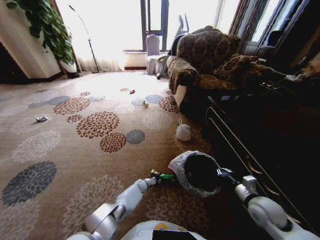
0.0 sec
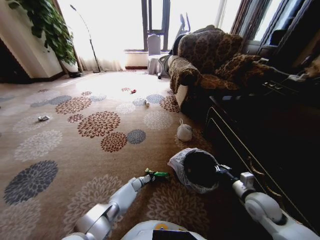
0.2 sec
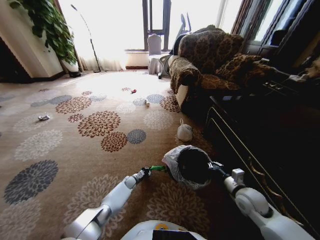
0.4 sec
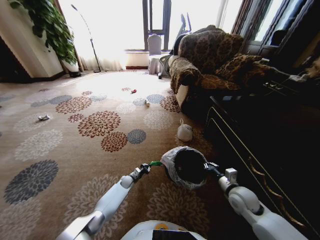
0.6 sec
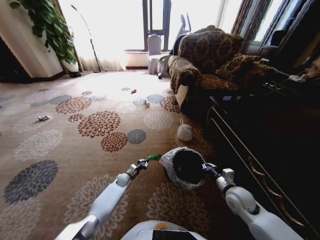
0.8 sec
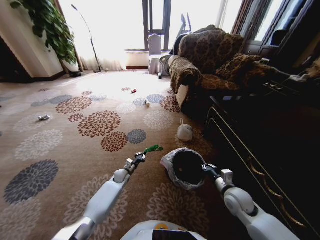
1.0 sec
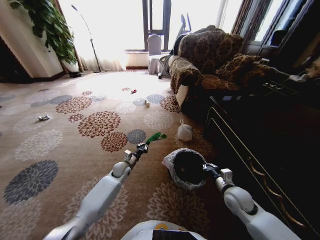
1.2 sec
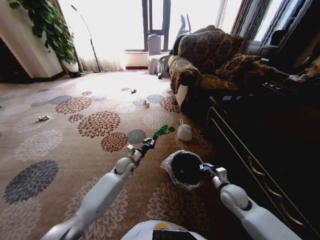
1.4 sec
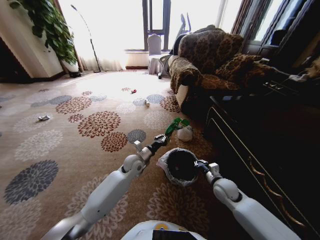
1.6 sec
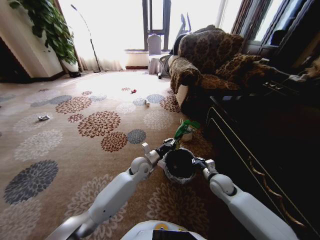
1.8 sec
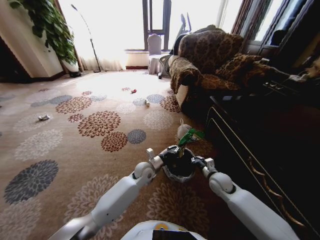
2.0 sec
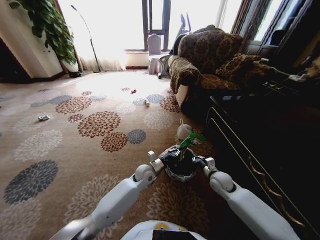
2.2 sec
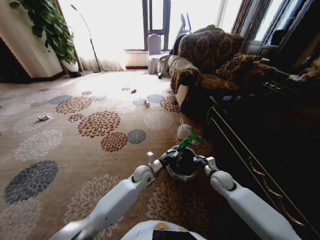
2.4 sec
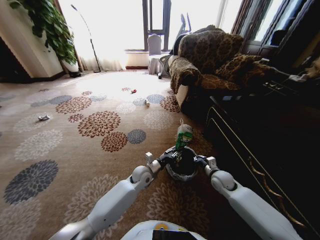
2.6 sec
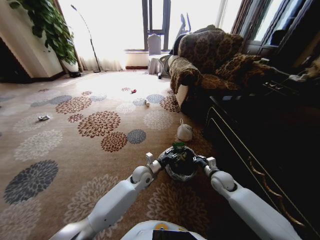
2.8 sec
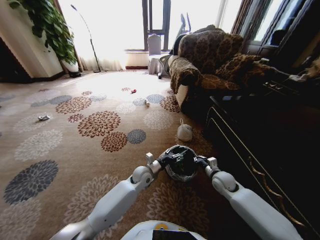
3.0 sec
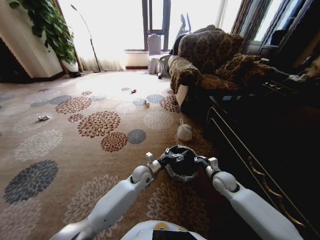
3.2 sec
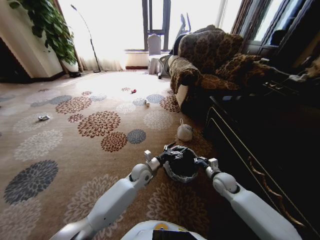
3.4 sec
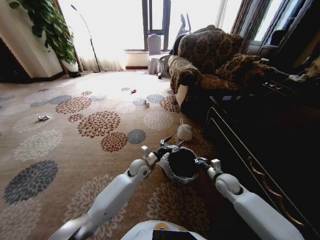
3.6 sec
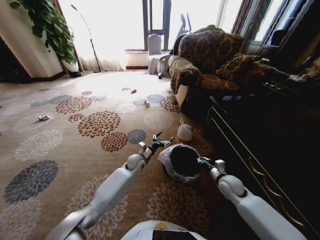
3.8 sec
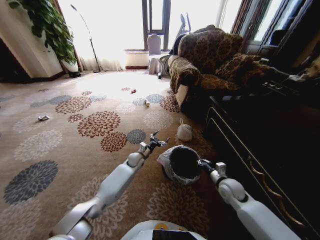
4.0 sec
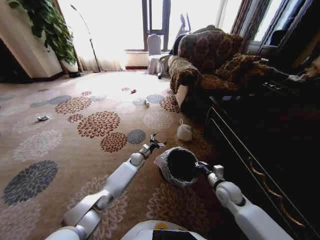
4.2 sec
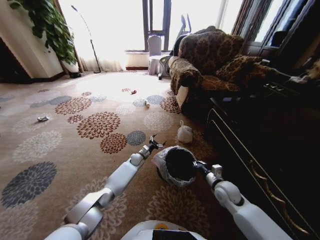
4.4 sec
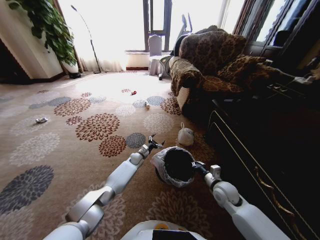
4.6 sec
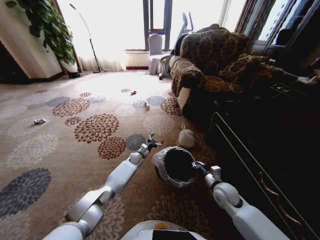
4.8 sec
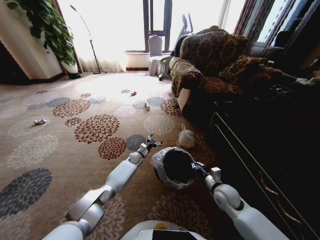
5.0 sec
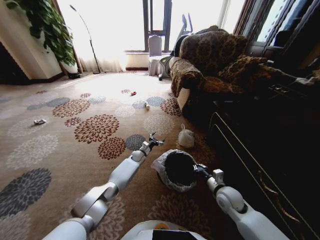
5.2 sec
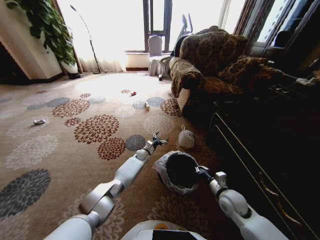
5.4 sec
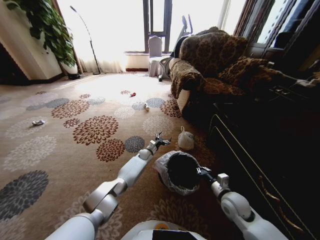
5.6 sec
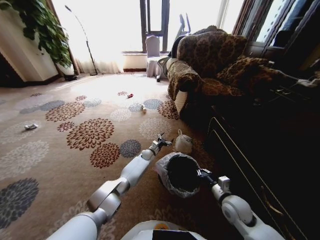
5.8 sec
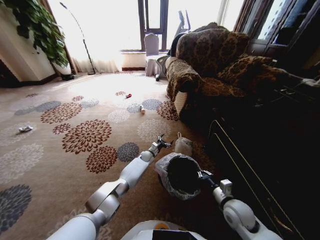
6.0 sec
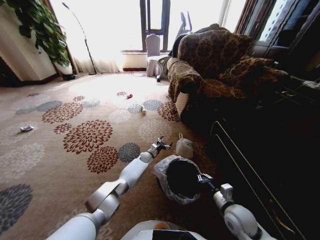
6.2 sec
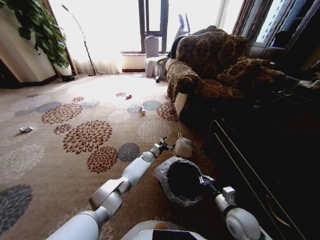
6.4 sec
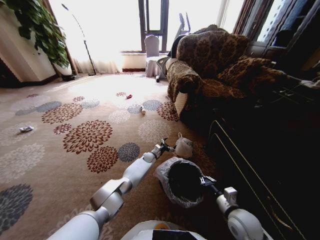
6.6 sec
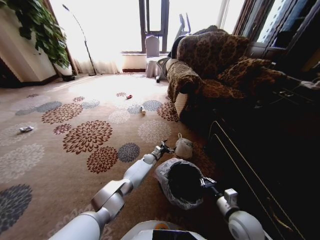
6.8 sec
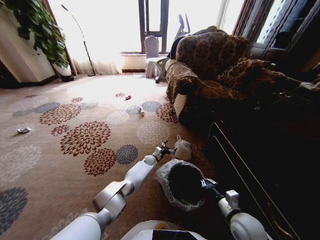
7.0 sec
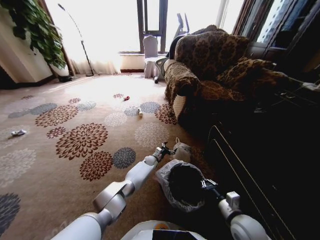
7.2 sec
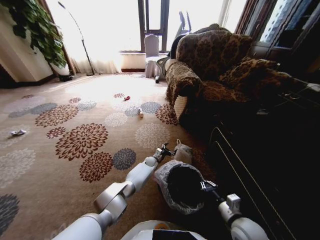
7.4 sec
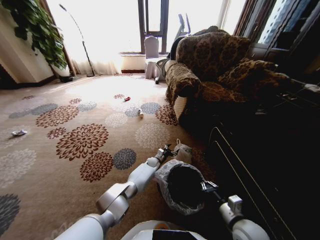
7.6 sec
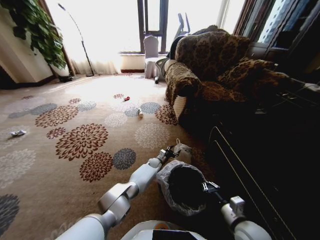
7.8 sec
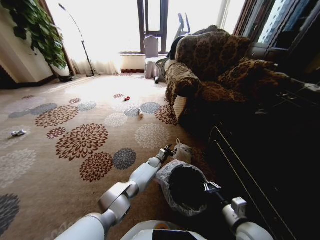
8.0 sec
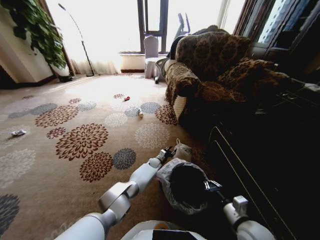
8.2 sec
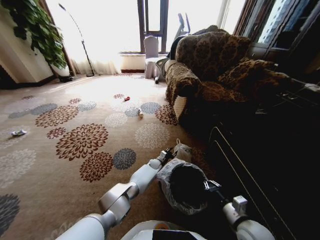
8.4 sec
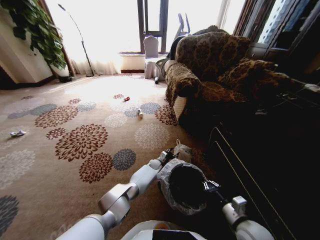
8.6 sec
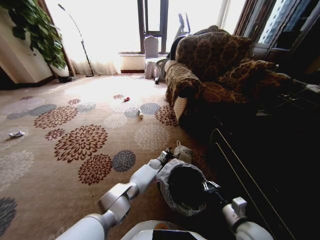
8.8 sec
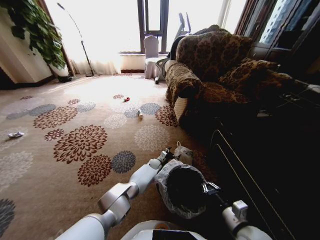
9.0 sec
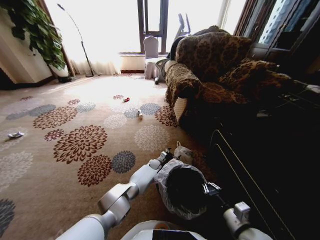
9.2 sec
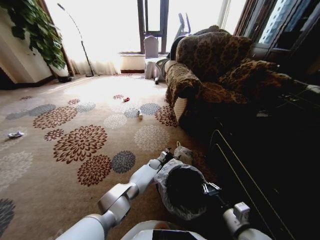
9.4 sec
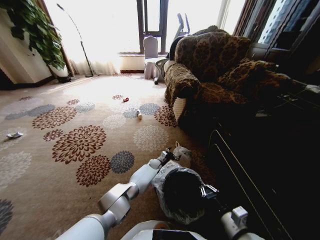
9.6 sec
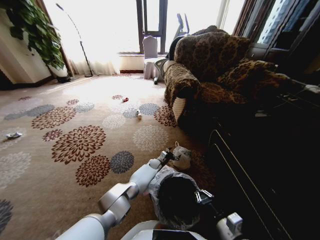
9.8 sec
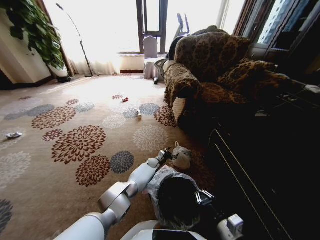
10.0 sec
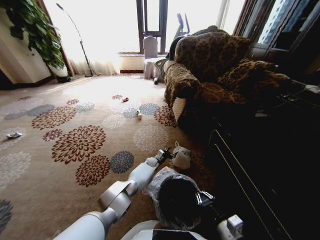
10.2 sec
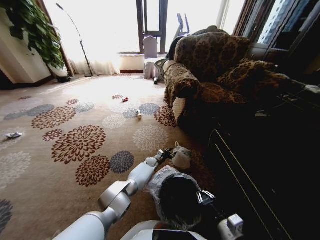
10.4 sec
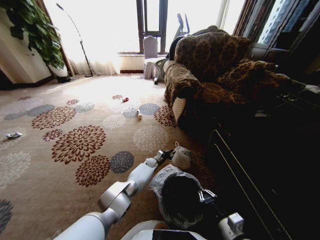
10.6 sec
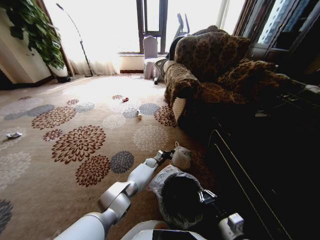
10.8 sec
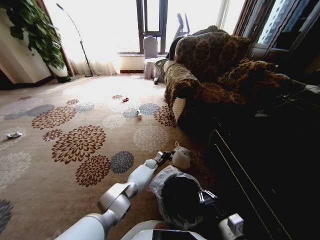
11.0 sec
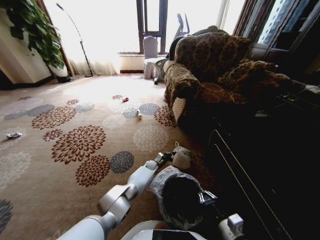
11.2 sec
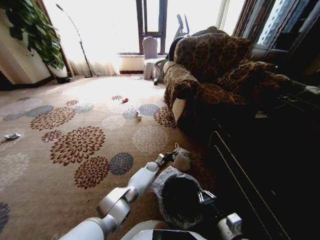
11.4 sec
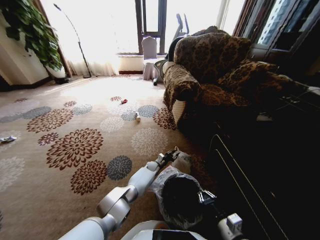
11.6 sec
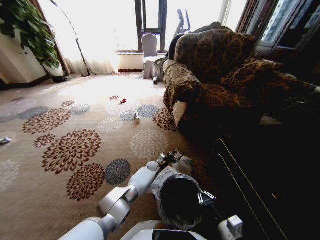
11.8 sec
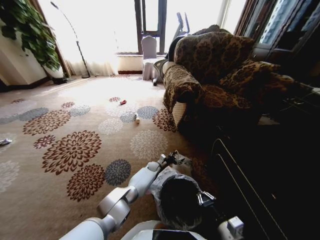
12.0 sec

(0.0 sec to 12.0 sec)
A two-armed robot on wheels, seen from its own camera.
Task of the whole recording: Pick up the trash from the ground and place it into the trash bin.
0.0 sec - 1.6 sec: The left gripper goes some 30 cm upward. Meanwhile the right gripper travels forward, to the left and downward by some 15 cm.
1.6 sec - 3.0 sec: The left gripper moves downward, about 5 cm, and opens its fingers.
3.0 sec - 4.4 sec: The right gripper is displaced backward by about 5 cm, while the left gripper is displaced forward, downward and to the left by some 20 cm.
4.4 sec - 6.0 sec: The left gripper heads to the right, covering roughly 5 cm, while the right gripper heads backward, covering about 5 cm.
6.0 sec - 7.6 sec: The right gripper travels backward by roughly 5 cm, while the left gripper ends up roughly 5 cm from where it was.
7.6 sec - 9.0 sec: The left gripper closes and opens again.
9.0 sec - 10.4 sec: The left gripper closes.
10.4 sec - 12.0 sec: The left gripper closes and opens again.

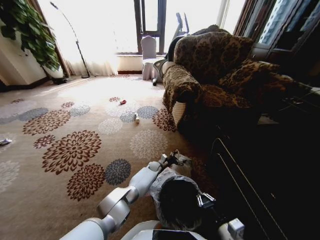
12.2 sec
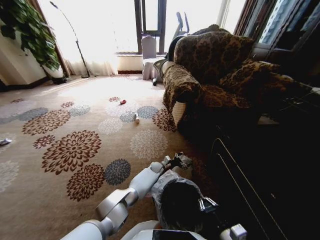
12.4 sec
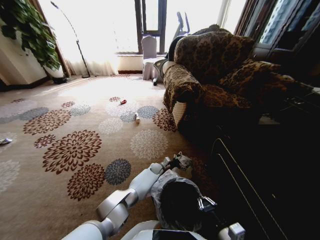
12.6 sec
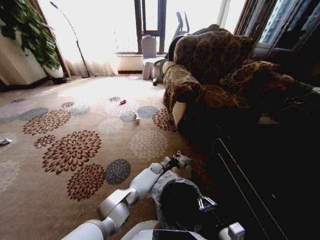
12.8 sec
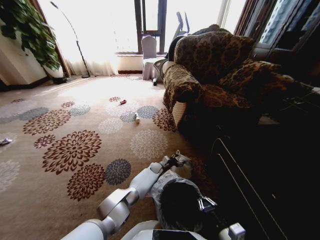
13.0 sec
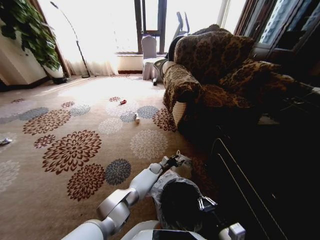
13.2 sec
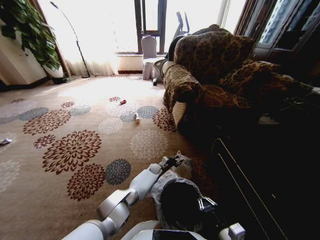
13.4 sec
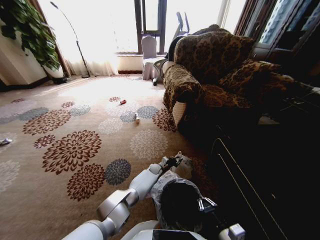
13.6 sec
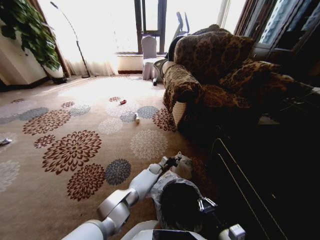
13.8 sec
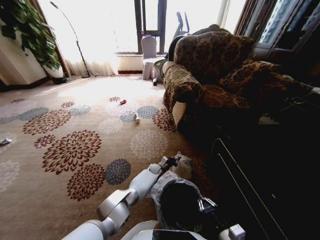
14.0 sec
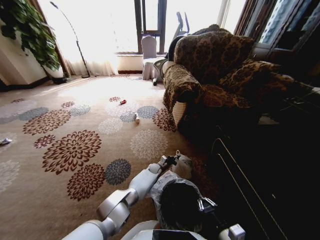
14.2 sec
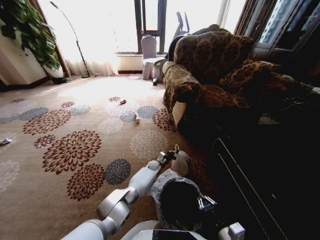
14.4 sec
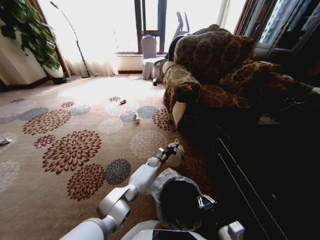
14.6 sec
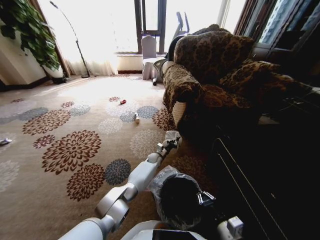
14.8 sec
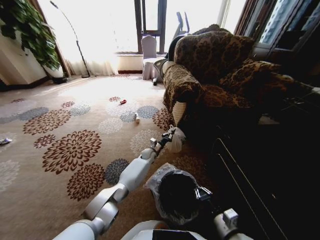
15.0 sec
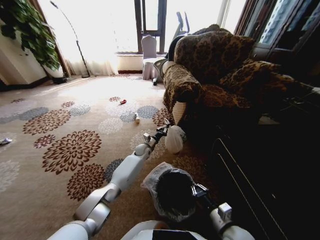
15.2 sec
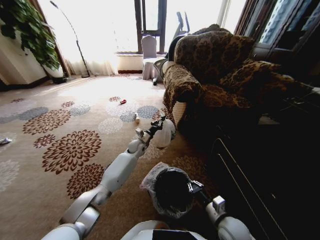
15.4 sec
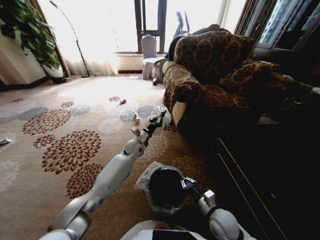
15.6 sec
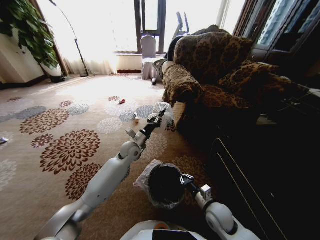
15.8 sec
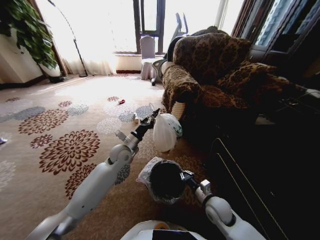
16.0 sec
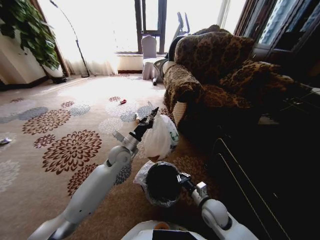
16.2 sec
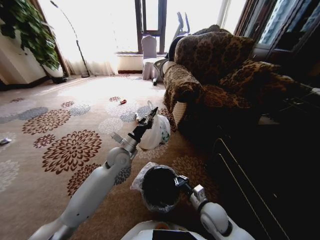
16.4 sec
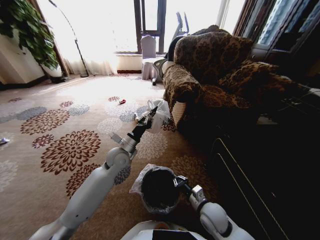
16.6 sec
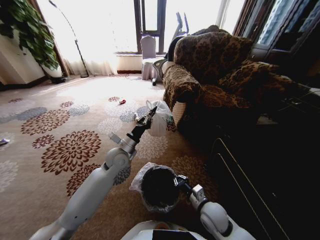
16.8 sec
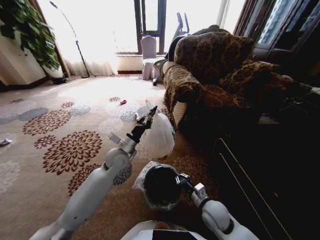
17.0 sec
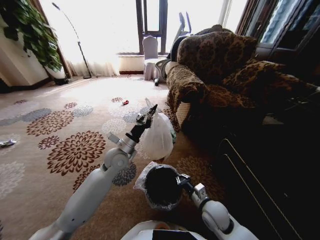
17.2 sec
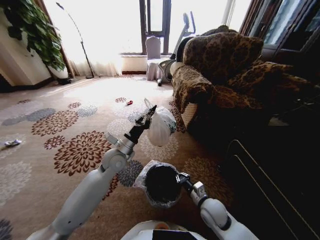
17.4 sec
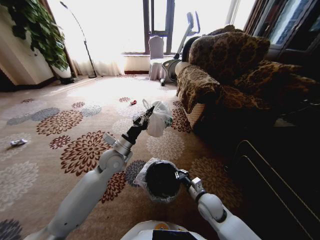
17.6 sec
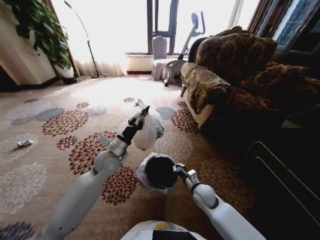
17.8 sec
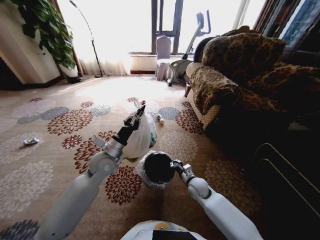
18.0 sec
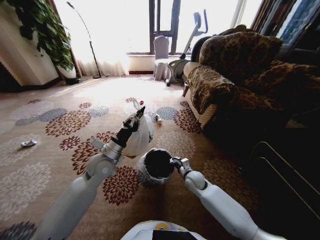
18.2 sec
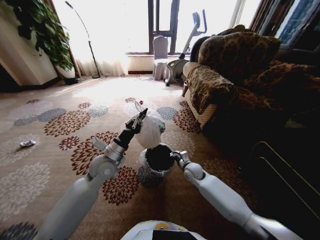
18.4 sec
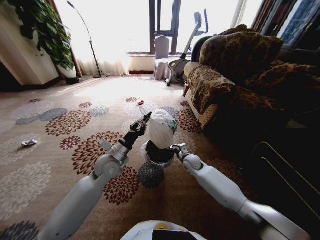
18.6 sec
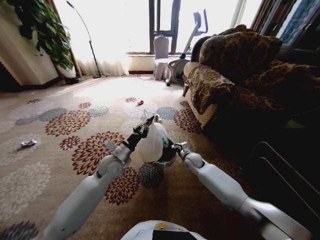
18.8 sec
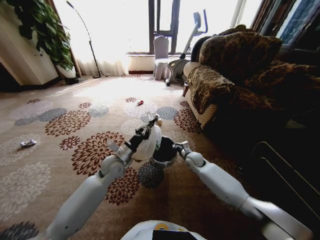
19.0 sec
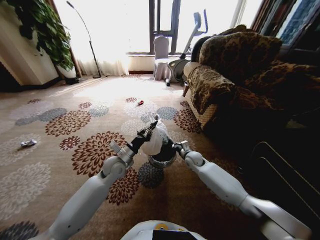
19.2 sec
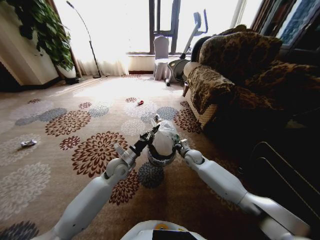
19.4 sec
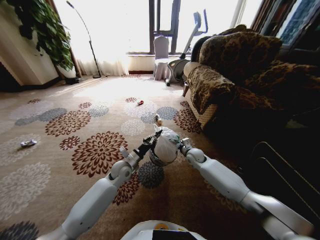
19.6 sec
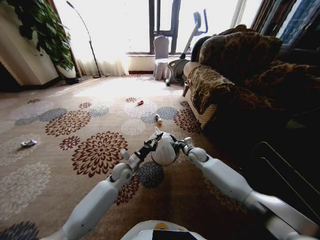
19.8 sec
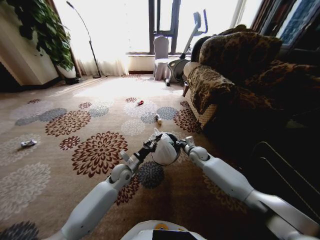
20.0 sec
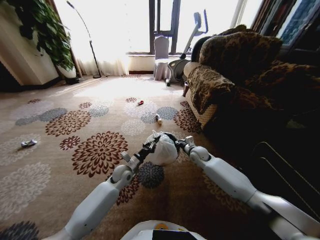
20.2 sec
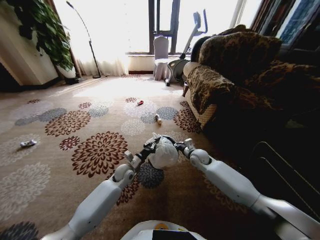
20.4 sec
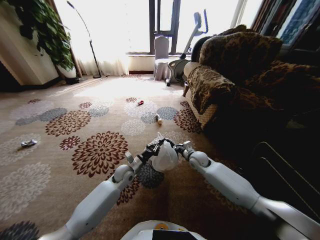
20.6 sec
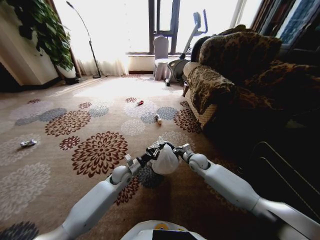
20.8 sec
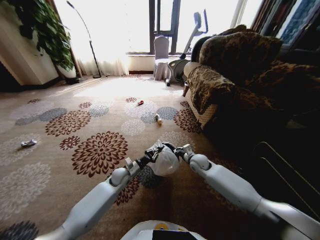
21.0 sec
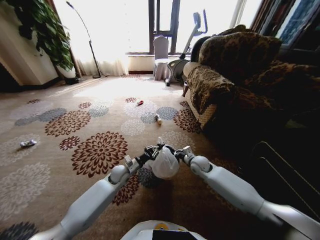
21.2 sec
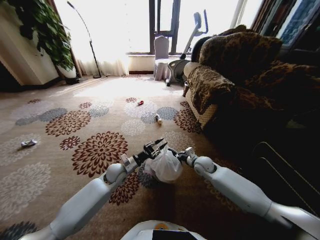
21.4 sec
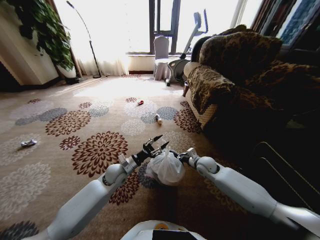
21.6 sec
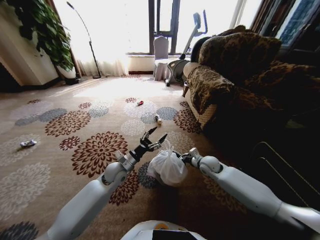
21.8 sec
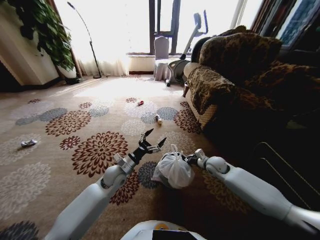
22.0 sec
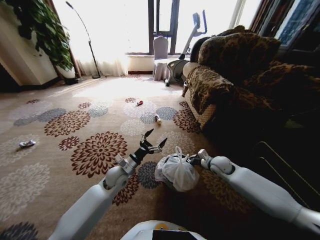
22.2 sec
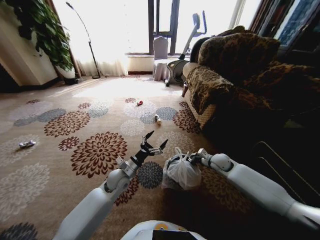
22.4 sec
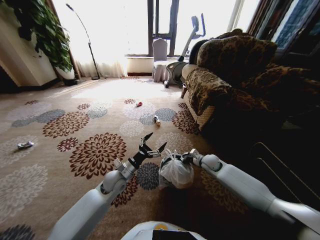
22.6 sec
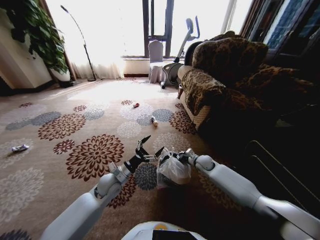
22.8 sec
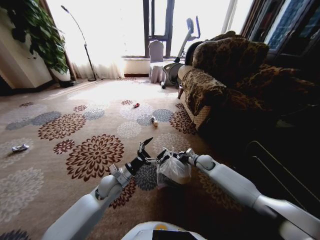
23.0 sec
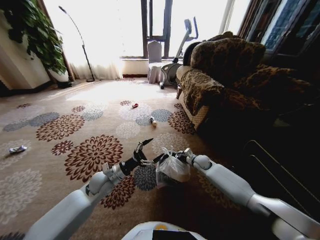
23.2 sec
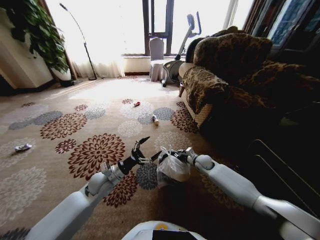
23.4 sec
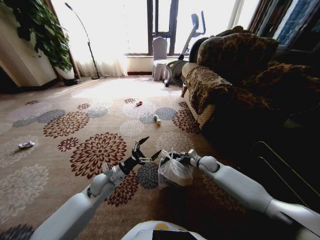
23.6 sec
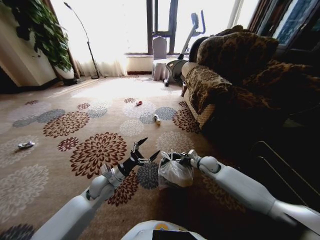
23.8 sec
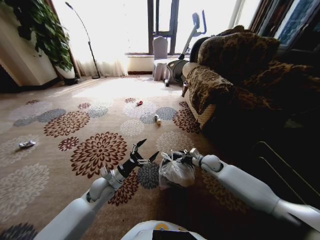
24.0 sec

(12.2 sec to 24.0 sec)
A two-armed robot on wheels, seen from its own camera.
Task of the whole recording: Pick up the trash from the ground and place it into the trash bin.
12.2 sec - 13.6 sec: The left gripper closes its fingers.
13.6 sec - 15.2 sec: The left gripper goes roughly 20 cm upward and to the left. The right gripper goes roughly 5 cm forward.
15.2 sec - 16.6 sec: The right gripper shifts approximately 10 cm forward and to the left. Meanwhile the left gripper travels backward, upward and to the left by approximately 20 cm.
16.6 sec - 18.2 sec: The right gripper goes roughly 15 cm forward. The left gripper changes place by about 5 cm.
18.2 sec - 19.6 sec: The right gripper travels forward and upward by about 10 cm. The left gripper travels downward by roughly 10 cm.
19.6 sec - 21.0 sec: The left gripper goes approximately 5 cm downward.
21.0 sec - 22.6 sec: The right gripper moves to the right, some 5 cm. The left gripper shifts some 5 cm upward, and opens up.
22.6 sec - 24.0 sec: The right gripper opens its fingers. Meanwhile the left gripper ends up about 5 cm from where it was.
